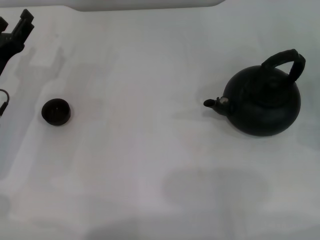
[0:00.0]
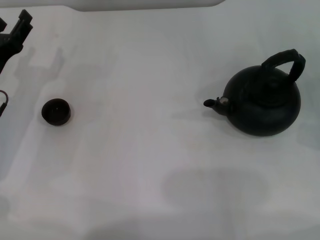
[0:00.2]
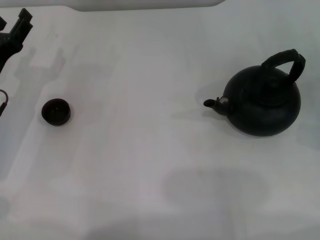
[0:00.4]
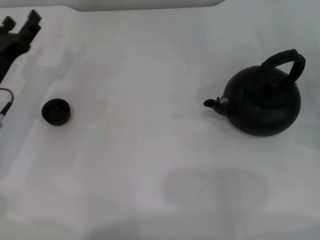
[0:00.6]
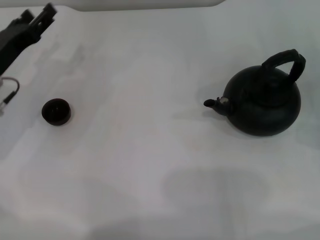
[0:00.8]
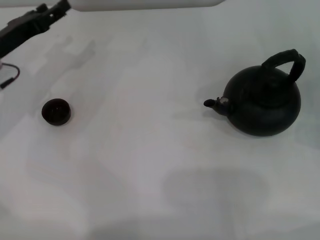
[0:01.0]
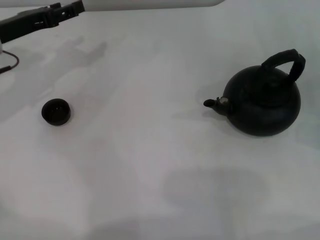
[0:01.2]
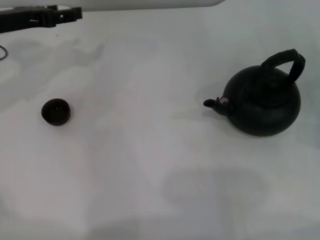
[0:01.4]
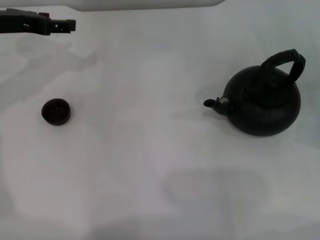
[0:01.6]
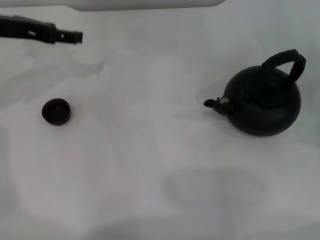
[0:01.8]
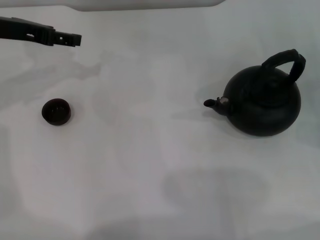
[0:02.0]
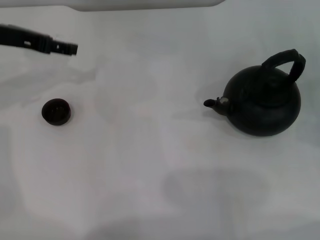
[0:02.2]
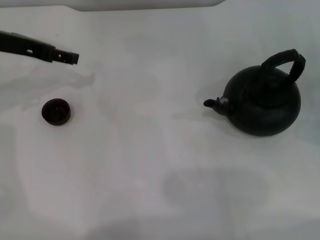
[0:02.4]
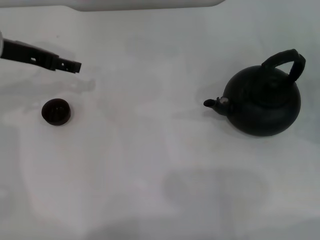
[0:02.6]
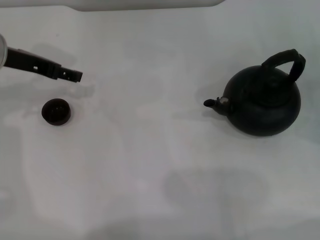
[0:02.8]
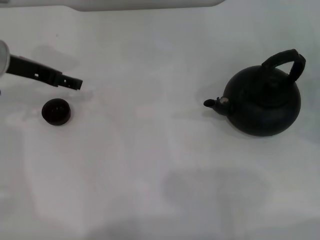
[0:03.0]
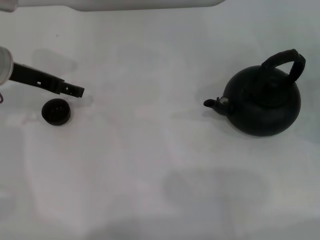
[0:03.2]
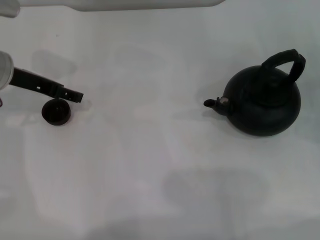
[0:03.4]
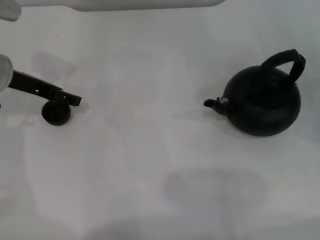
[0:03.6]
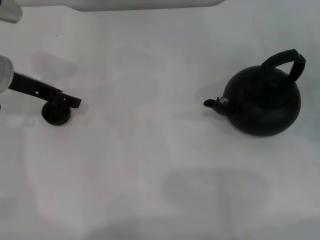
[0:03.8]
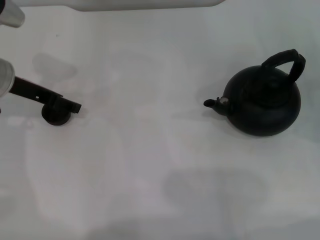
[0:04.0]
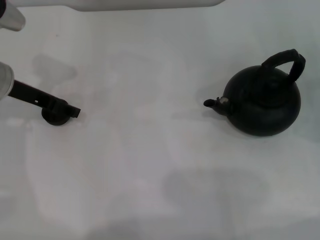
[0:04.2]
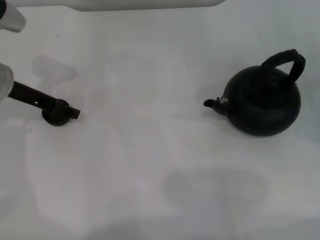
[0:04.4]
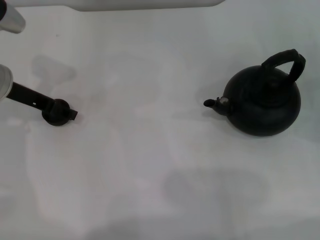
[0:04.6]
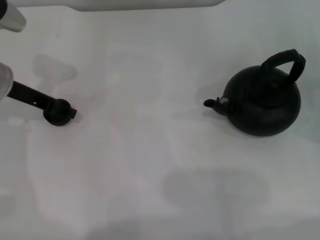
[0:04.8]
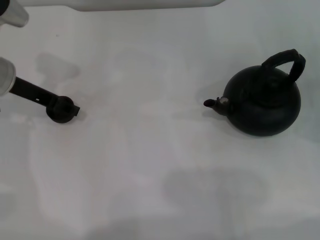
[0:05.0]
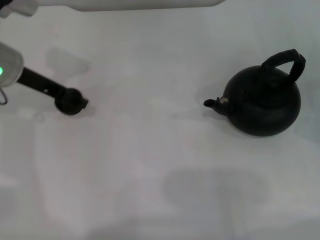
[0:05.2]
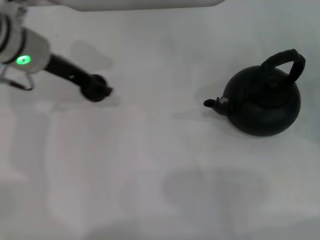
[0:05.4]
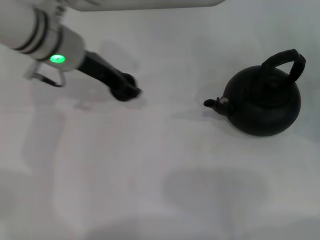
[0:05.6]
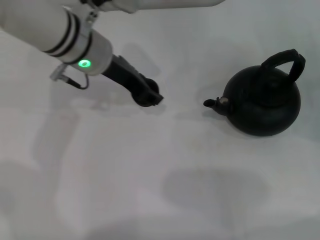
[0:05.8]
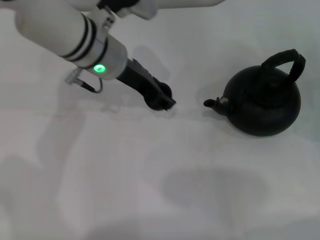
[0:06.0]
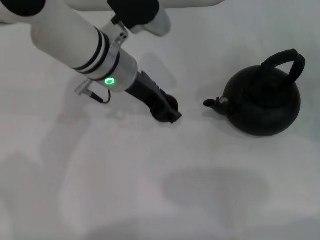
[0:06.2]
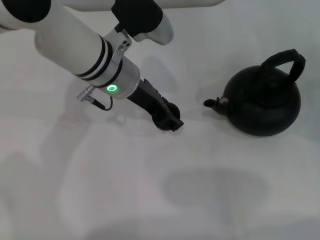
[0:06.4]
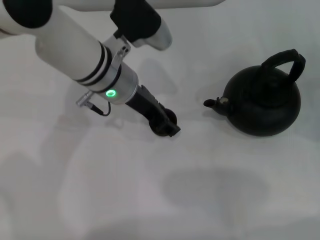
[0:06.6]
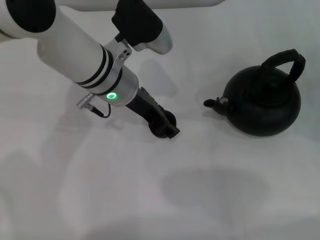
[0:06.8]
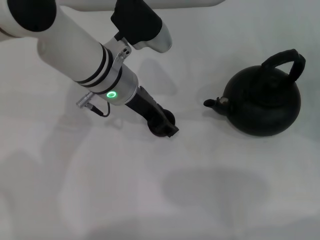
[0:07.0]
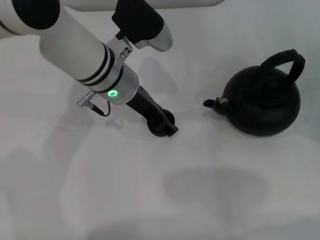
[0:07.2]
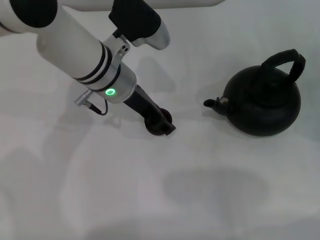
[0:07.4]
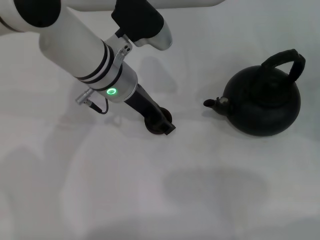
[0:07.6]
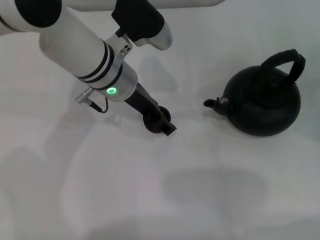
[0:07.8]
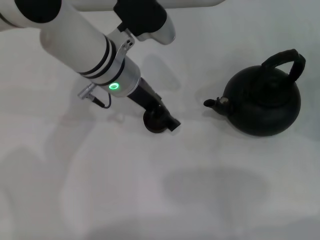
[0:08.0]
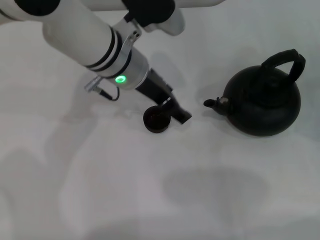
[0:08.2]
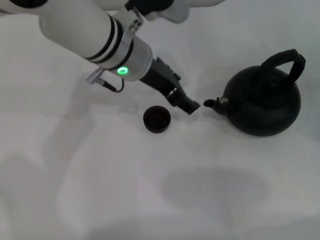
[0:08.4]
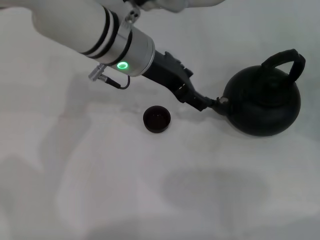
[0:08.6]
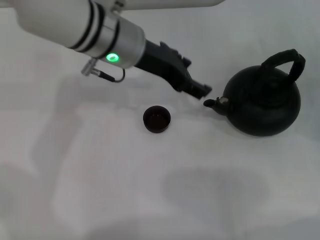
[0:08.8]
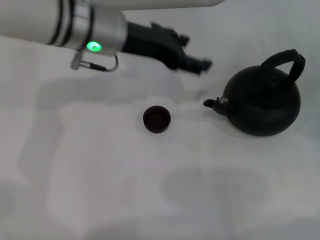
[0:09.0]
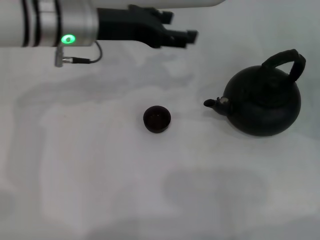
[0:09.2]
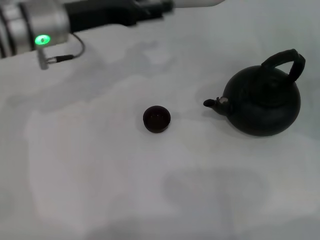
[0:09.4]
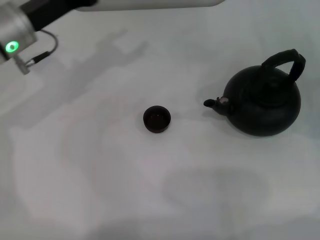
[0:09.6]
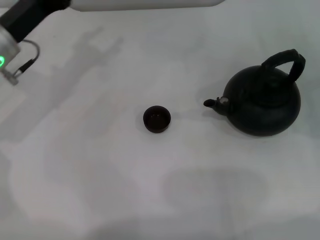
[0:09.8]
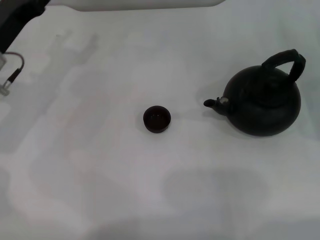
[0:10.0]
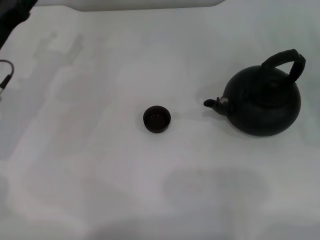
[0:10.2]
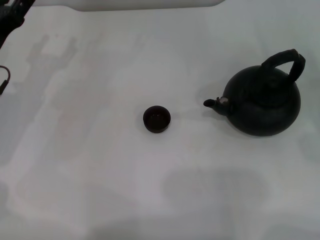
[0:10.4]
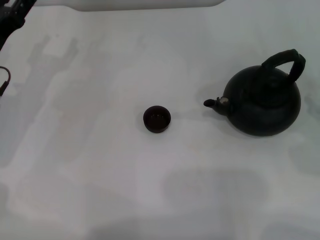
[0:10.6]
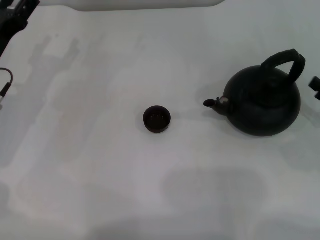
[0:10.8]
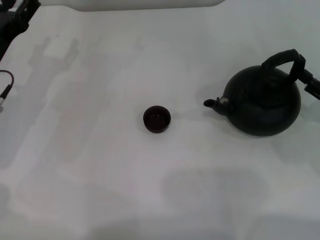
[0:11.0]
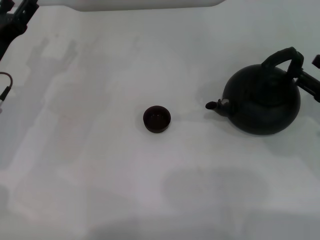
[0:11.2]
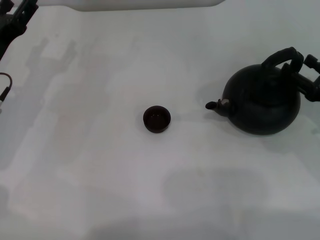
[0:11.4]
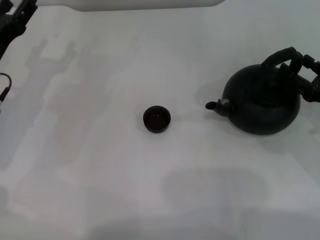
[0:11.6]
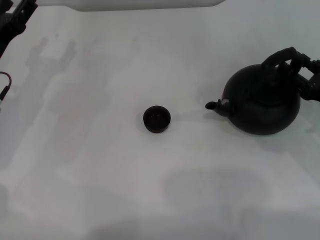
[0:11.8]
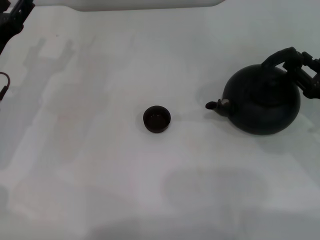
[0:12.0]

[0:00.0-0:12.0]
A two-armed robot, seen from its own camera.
Task of the whole recording: Grasp the handle of the teapot with one hand and pour tea into the teacup.
Step, 0:00.0 to 0:05.2: Pick up the teacup with the left gripper.
Step, 0:05.4 to 0:08.4: Place the teacup in the center of view with the left gripper.
0:00.0 to 0:01.6: The left gripper travels upward and forward by some 15 cm.
0:01.6 to 0:03.0: The left gripper opens.
0:03.0 to 0:04.4: The grippers move only a little.
0:04.4 to 0:06.0: The left gripper goes about 15 cm to the right, and closes its fingers.
0:06.0 to 0:07.6: The left gripper opens up.
0:07.6 to 0:09.0: The left gripper moves upward, roughly 5 cm, and opens.
0:09.0 to 0:10.4: The left gripper is displaced to the left and downward by some 20 cm.
0:10.4 to 0:12.0: The right gripper goes some 5 cm to the left.

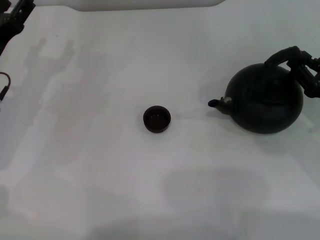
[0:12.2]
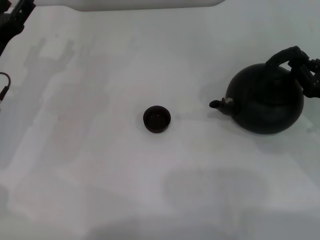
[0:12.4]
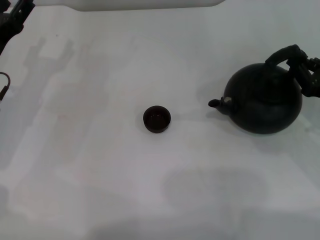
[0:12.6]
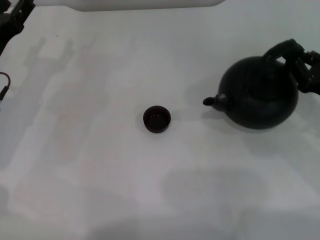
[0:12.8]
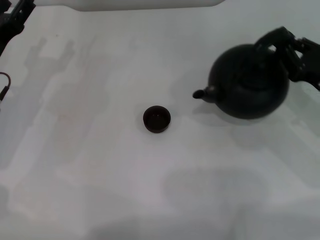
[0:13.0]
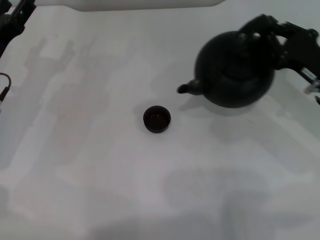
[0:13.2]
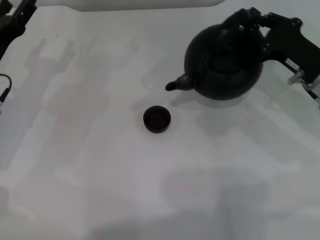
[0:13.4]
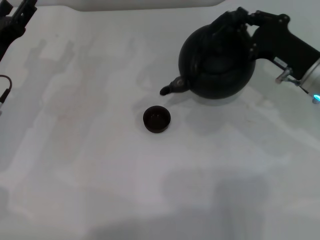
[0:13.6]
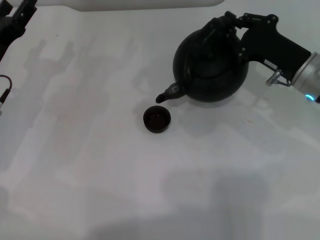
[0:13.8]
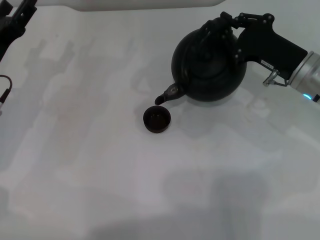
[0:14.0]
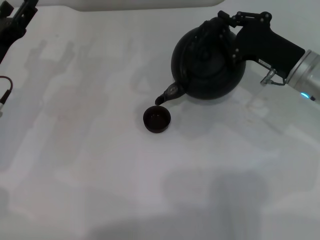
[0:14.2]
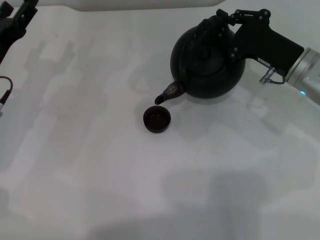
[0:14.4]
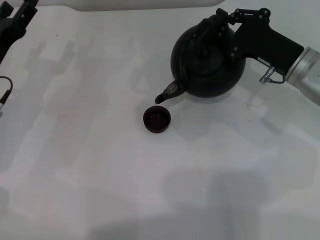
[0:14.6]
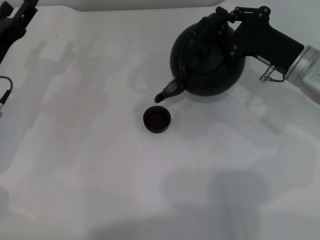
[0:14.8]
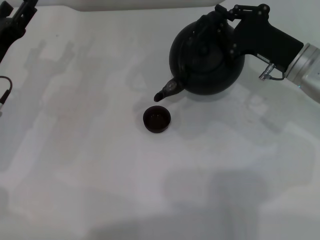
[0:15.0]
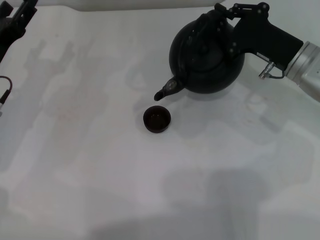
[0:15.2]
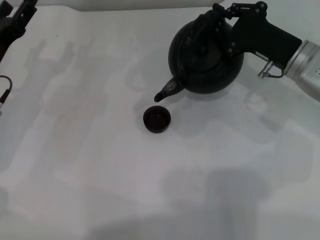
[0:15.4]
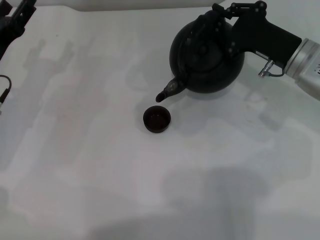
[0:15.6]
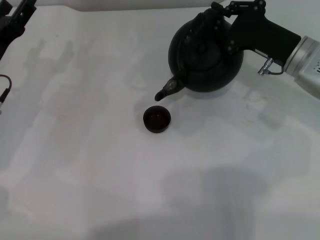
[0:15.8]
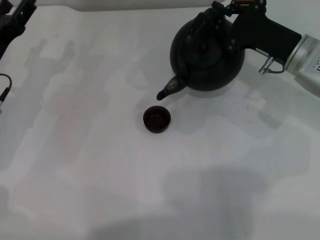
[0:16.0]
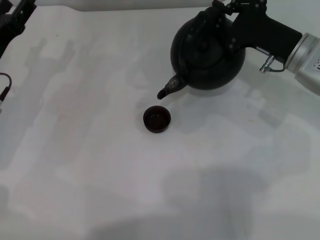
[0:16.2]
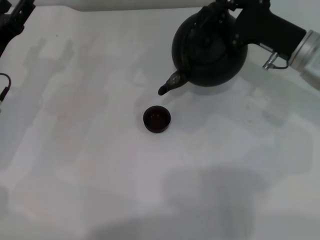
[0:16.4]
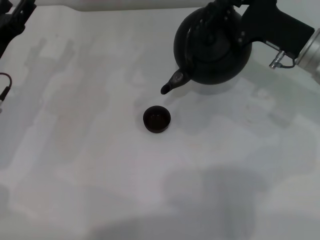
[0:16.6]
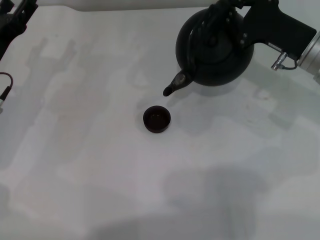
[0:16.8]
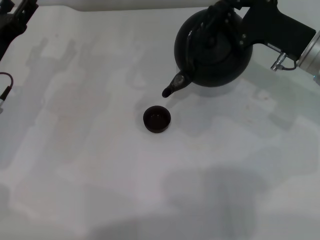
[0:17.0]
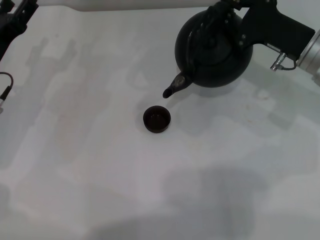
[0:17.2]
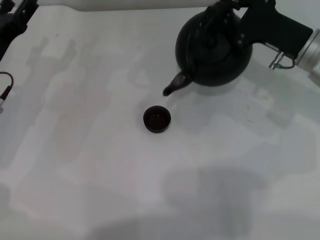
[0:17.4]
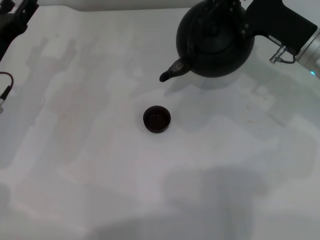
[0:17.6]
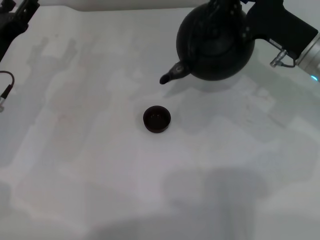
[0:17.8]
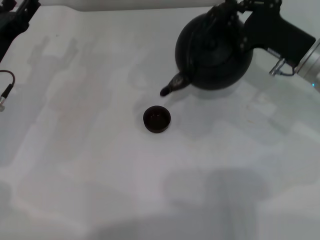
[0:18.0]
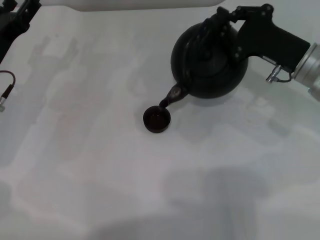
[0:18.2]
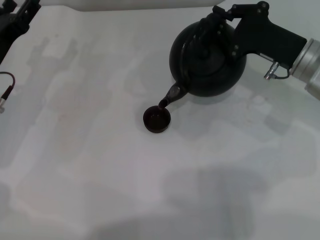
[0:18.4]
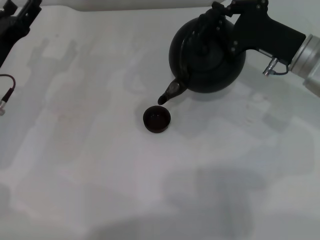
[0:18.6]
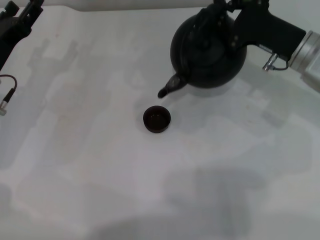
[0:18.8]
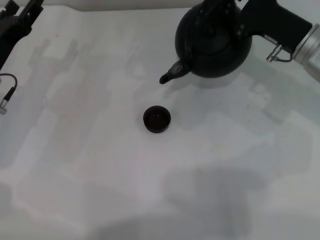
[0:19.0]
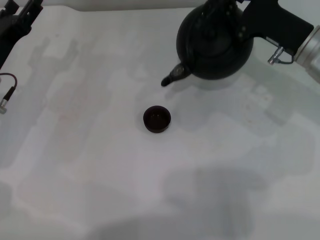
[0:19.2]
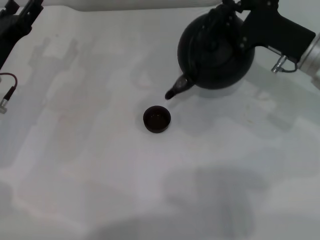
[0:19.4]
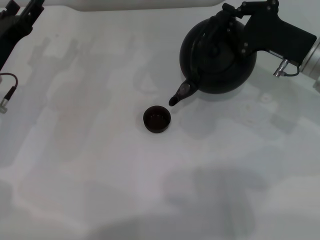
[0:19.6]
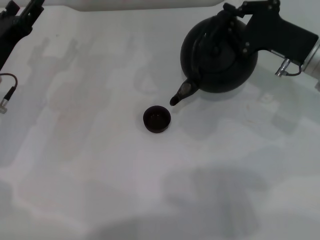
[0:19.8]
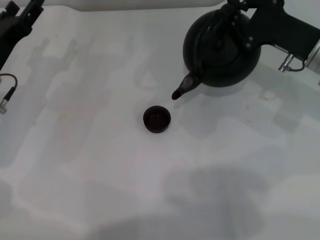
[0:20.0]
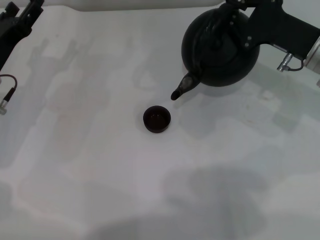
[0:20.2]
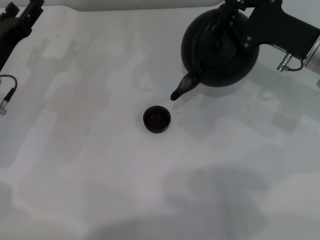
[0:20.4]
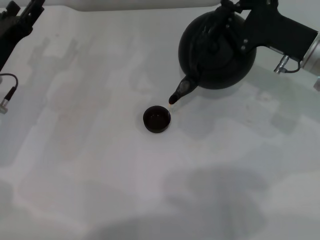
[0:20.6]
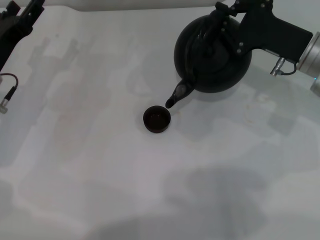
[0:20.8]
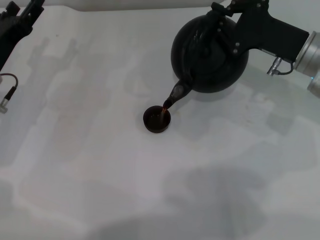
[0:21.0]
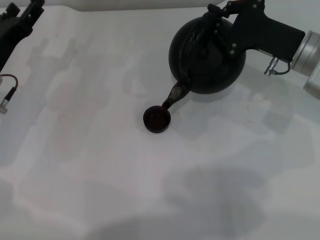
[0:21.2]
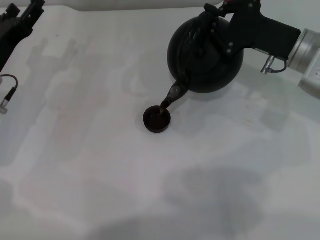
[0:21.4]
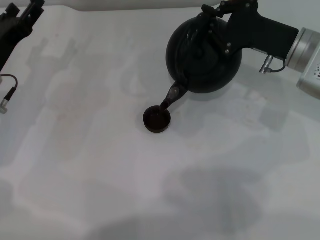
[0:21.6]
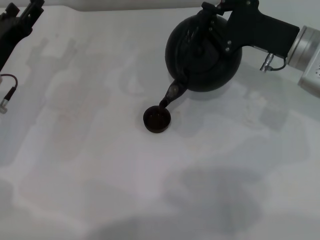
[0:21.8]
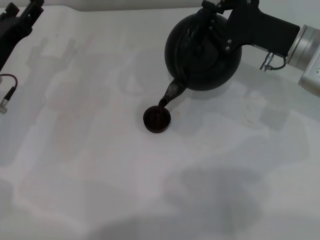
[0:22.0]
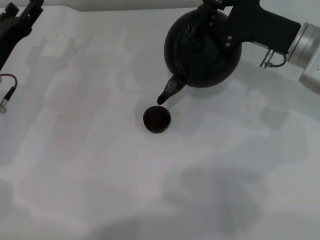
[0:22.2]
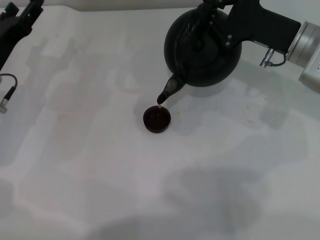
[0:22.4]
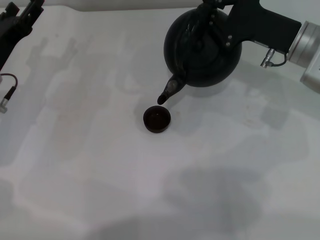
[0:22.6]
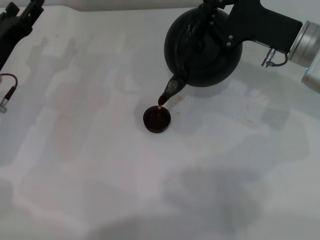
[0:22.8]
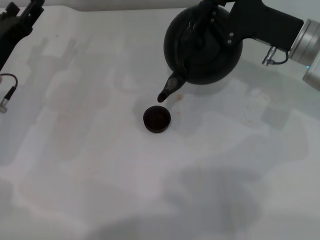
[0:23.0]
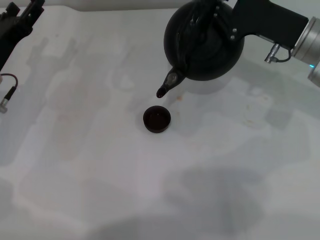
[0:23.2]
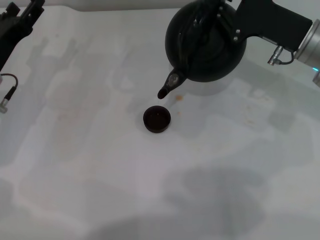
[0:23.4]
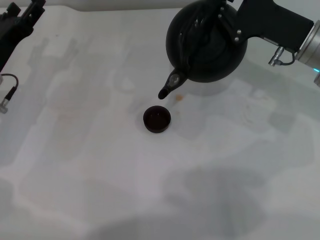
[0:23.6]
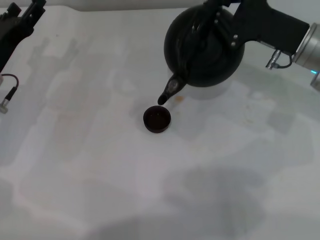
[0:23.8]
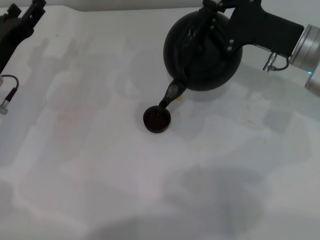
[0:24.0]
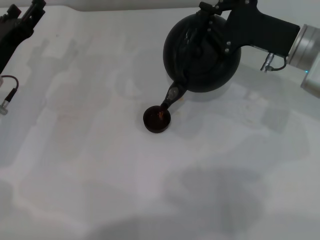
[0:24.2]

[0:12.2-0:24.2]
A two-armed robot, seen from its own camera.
Task of the whole recording: Grasp the handle of the teapot with one hand and pour tea into the teacup.
0:12.2 to 0:13.8: The right gripper moves to the left and forward, some 10 cm, and closes up.
0:13.8 to 0:19.8: The grippers make only small movements.
0:19.8 to 0:21.2: The grippers stay close to where they were, moving slightly.
0:21.2 to 0:22.6: The two grippers keep their place.
0:22.6 to 0:24.2: Neither gripper changes place.
